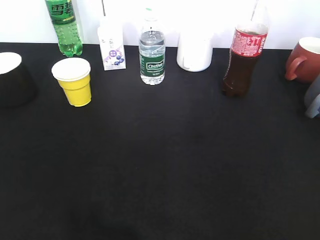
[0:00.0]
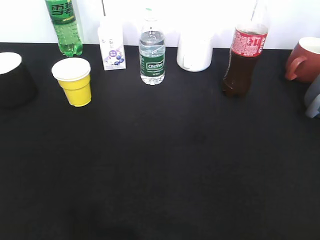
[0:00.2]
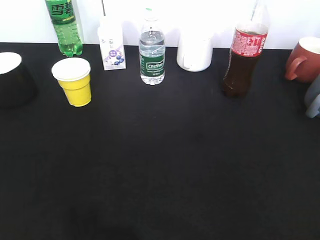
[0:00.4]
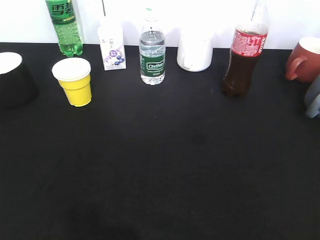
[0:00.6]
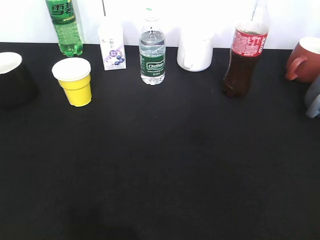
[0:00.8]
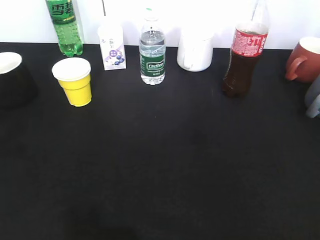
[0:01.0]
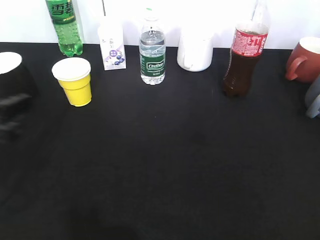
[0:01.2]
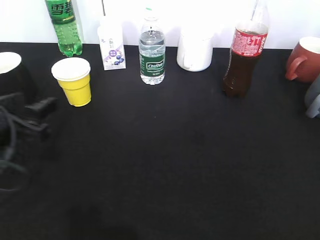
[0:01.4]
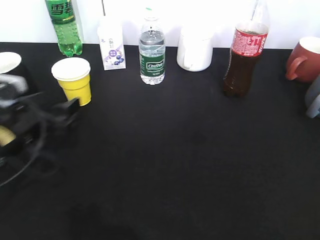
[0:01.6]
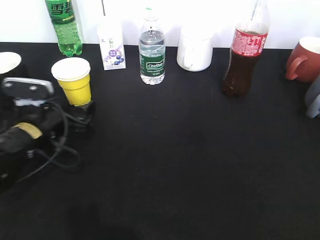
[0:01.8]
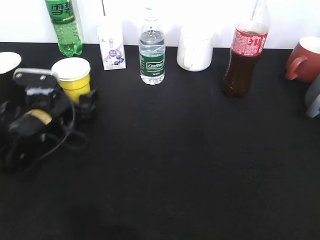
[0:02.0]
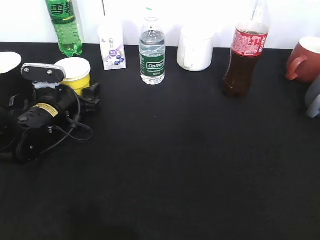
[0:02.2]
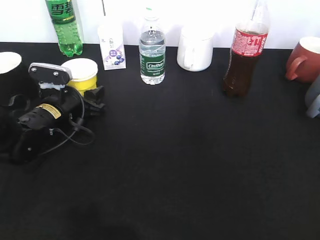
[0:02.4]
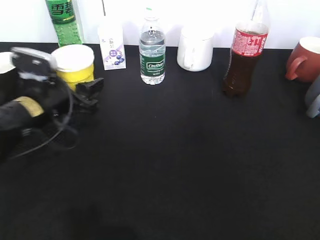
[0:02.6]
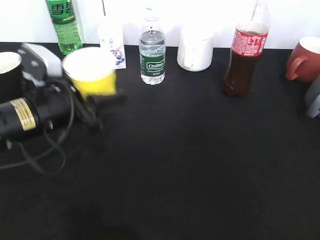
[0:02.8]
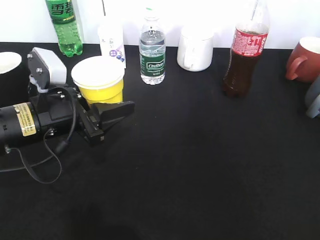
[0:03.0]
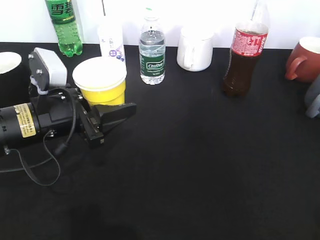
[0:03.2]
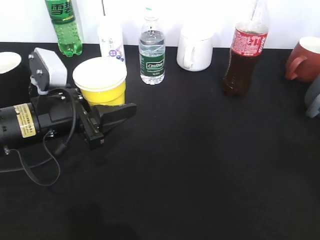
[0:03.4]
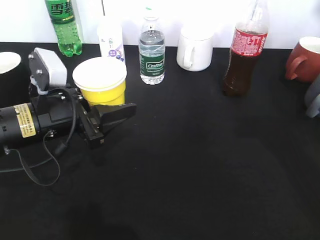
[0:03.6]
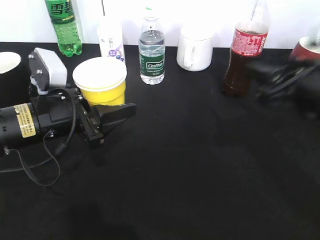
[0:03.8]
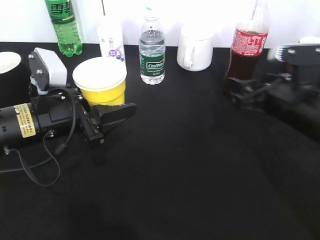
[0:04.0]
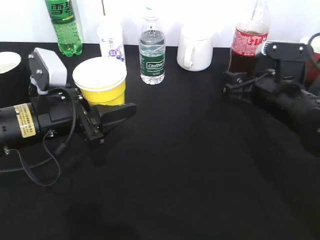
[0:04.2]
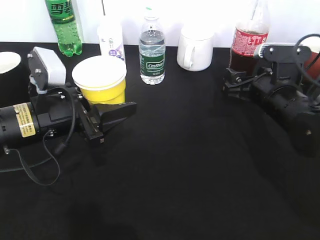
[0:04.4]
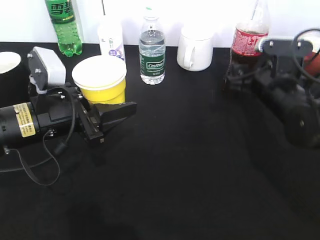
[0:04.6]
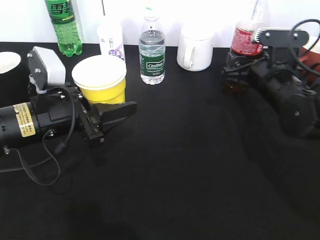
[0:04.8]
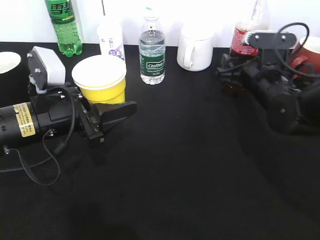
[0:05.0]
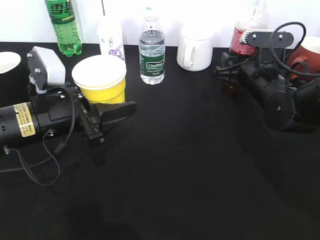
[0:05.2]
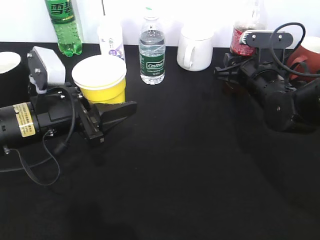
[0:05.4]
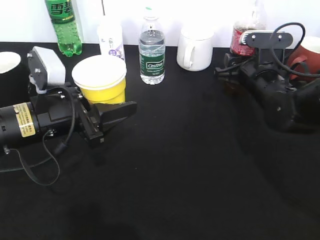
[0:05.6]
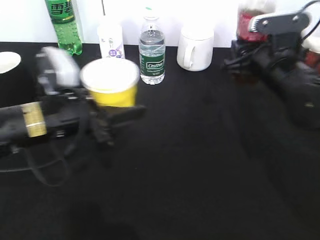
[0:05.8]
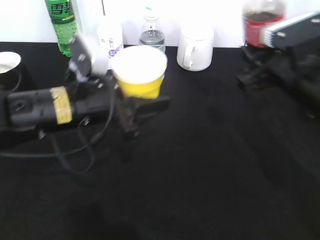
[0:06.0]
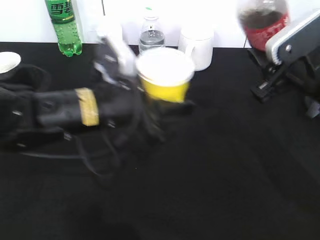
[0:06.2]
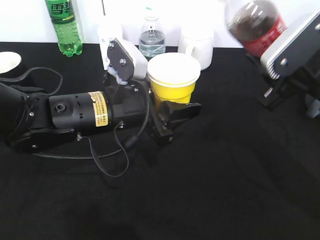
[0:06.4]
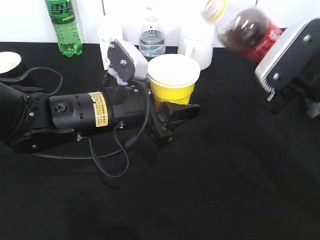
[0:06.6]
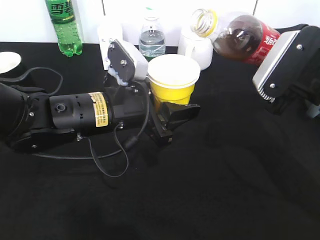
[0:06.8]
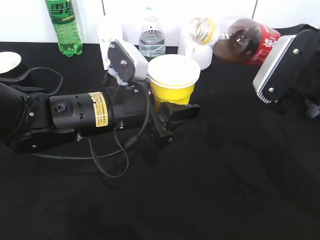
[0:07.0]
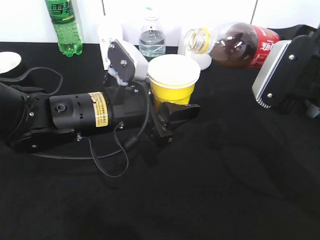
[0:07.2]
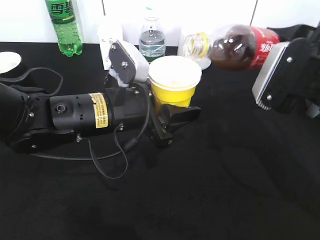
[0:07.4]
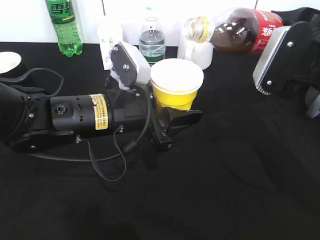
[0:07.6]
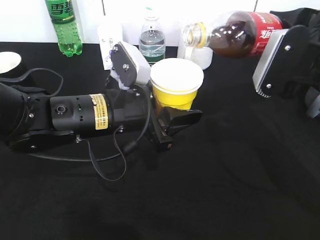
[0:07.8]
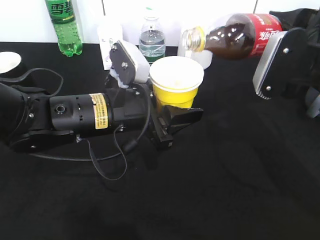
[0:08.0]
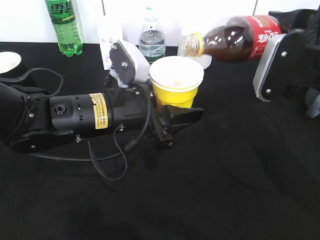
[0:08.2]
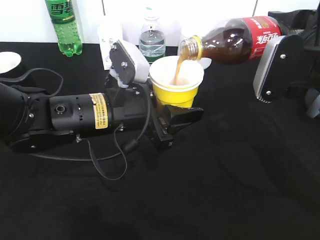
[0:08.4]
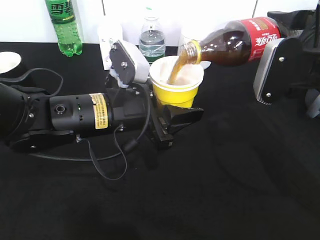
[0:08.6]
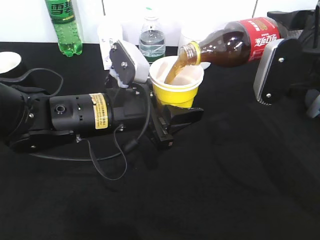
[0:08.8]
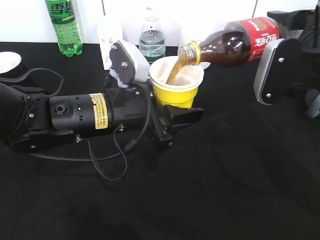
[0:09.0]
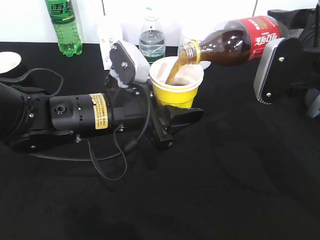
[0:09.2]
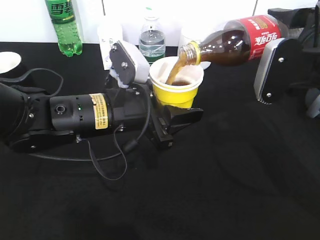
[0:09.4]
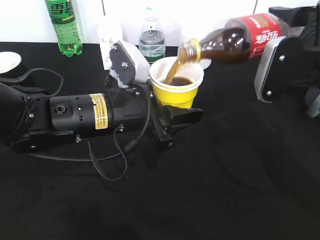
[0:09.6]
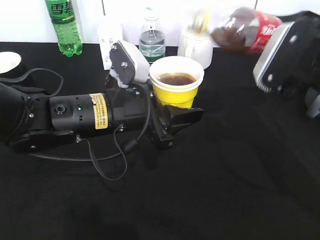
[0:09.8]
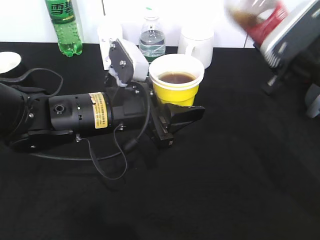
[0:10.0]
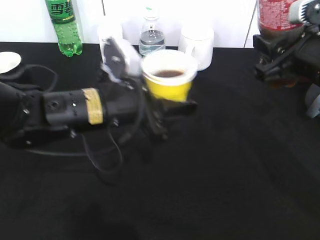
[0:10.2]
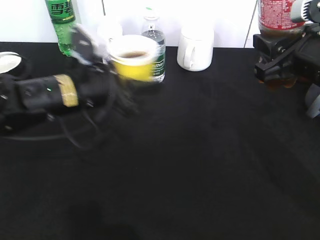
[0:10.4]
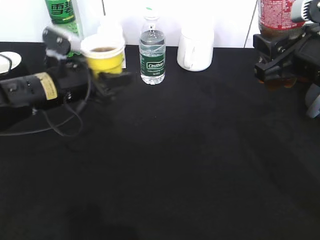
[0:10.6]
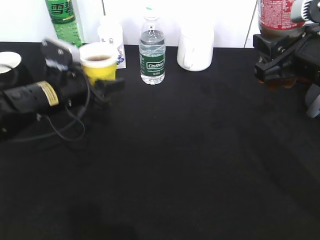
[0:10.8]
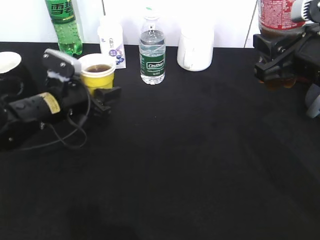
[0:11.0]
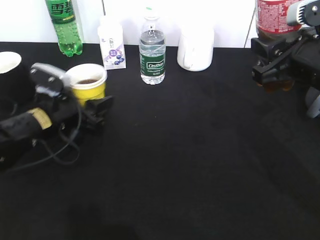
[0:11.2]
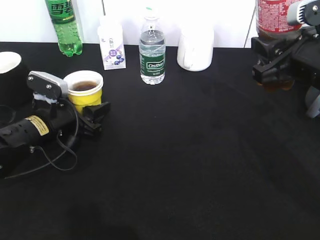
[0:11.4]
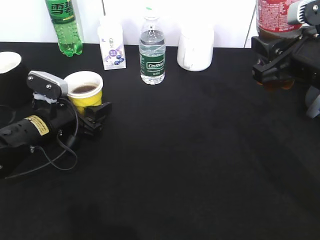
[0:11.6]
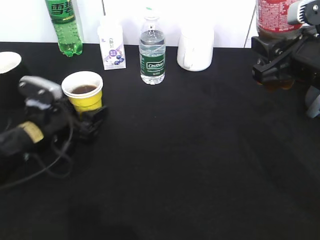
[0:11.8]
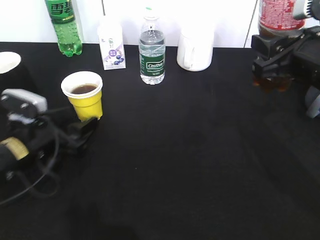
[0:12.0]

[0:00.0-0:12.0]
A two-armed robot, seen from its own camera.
Step, 0:00.0 to 0:02.4: Grasp the yellow paper cup with left gripper.
Step, 0:02.6 to 0:02.8: Lift the yellow paper cup with left gripper.
Step, 0:03.0 to 0:05.6: Grasp the bottle with cola with right gripper.
Step, 0:05.8 to 0:09.6: Pour the cola from bottle to cup with right gripper.
Step, 0:09.8 to 0:11.8: Place the yellow paper cup on the table with left gripper.
0:00.0 to 0:01.6: The left gripper travels forward and downward by about 30 cm, and opens its fingers.
0:01.6 to 0:03.0: The left gripper travels to the right by some 5 cm, moves approximately 10 cm forward and comes back, and closes its fingers.
0:03.0 to 0:04.4: The right gripper shifts roughly 35 cm forward and downward.
0:04.4 to 0:06.0: The left gripper heads to the right, covering about 5 cm. Meanwhile the right gripper moves upward, some 5 cm, and closes up.
0:06.0 to 0:07.6: The right gripper changes place by some 5 cm.
0:07.6 to 0:09.0: The grippers move only a little.
0:09.0 to 0:10.4: The left gripper is displaced to the left by roughly 5 cm.
0:10.4 to 0:12.0: The left gripper heads to the left and downward, covering approximately 15 cm, and opens up.

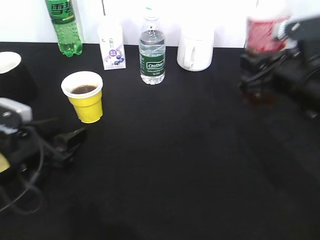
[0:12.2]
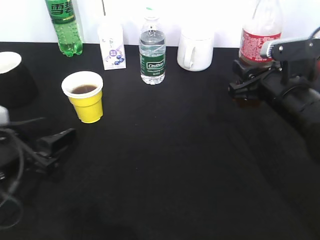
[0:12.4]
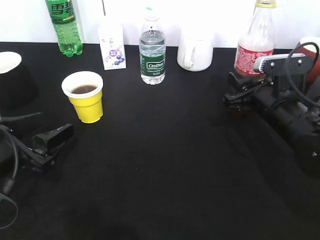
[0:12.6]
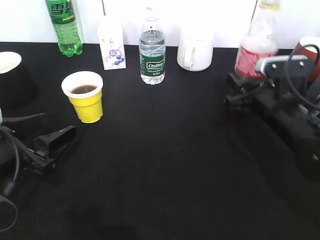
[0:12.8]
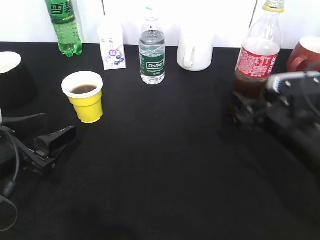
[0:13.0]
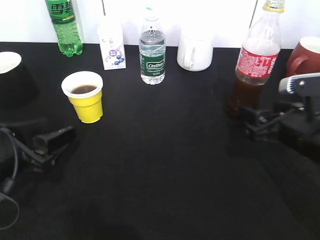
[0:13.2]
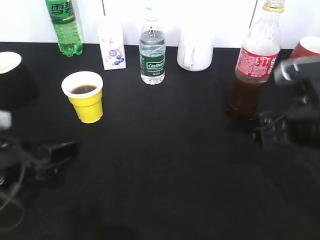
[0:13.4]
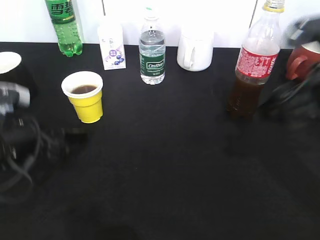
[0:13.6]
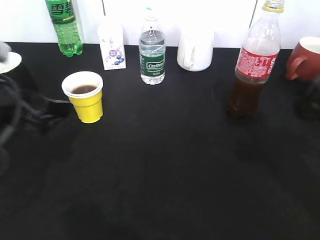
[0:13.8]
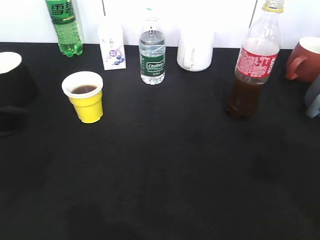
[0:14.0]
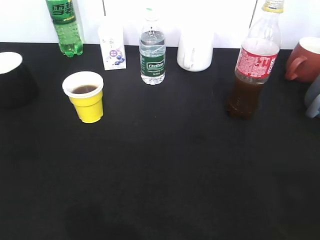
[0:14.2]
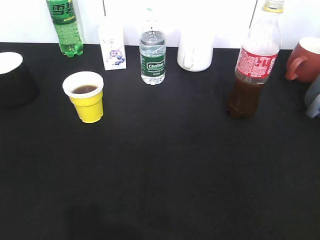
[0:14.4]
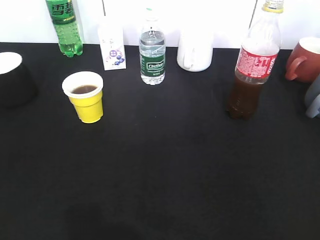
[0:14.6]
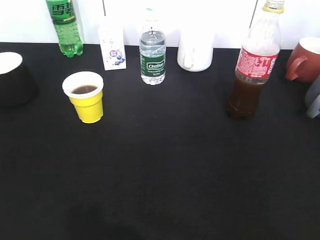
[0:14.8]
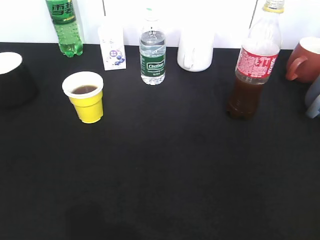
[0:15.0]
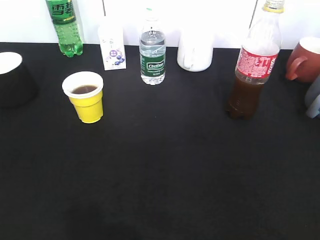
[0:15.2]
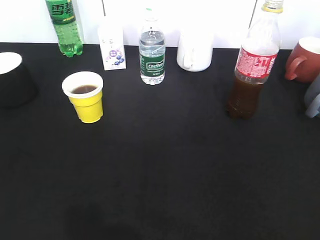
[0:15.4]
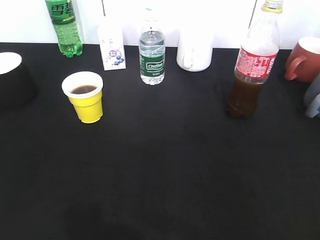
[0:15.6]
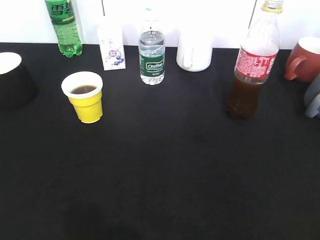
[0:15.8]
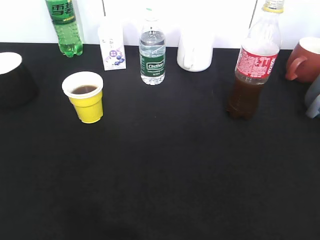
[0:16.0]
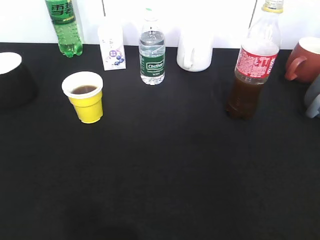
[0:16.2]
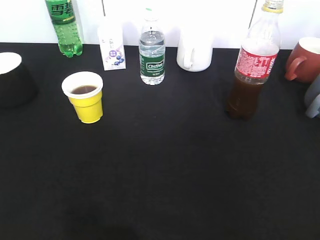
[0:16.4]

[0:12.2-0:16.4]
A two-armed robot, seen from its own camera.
Step, 0:12.2 to 0:13.2: Place the cola bottle on the table with right gripper.
0:12.2 to 0:13.6: The right gripper is displaced upward and backward by approximately 10 cm, and opens.
0:13.6 to 0:15.0: The left gripper moves backward, upward and to the left, roughly 25 cm, while the right gripper heads backward and to the right, covering about 25 cm.

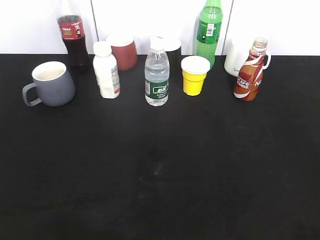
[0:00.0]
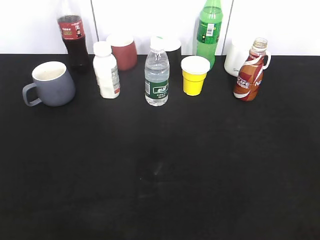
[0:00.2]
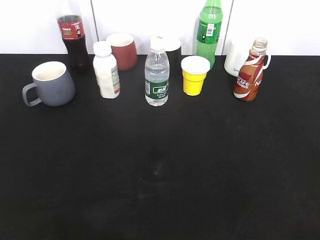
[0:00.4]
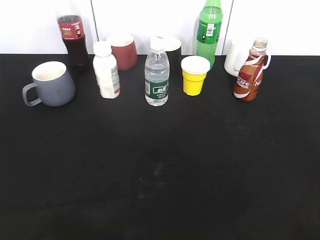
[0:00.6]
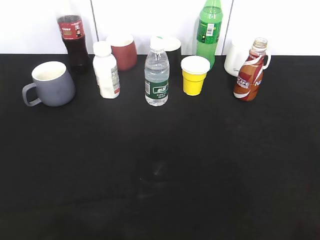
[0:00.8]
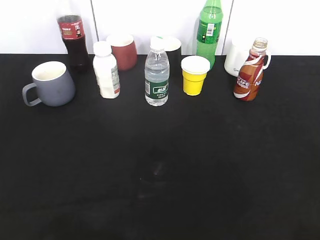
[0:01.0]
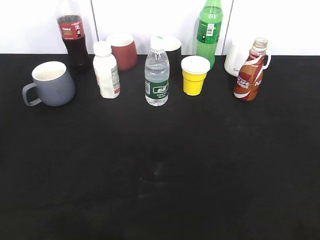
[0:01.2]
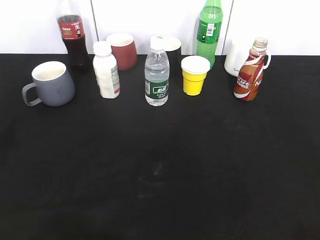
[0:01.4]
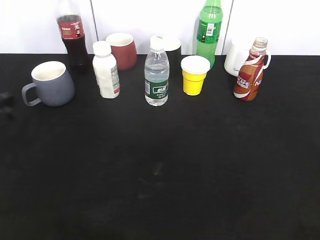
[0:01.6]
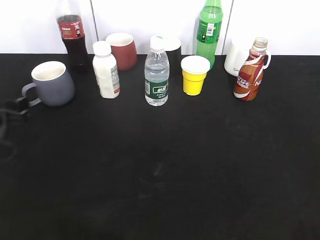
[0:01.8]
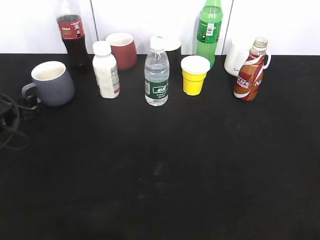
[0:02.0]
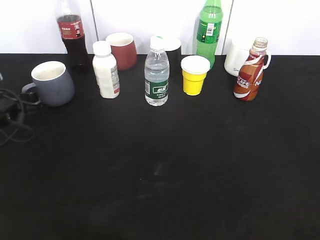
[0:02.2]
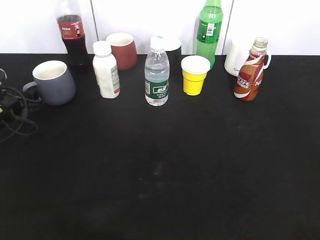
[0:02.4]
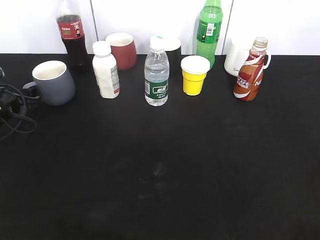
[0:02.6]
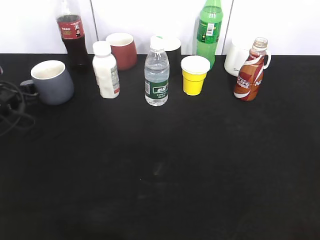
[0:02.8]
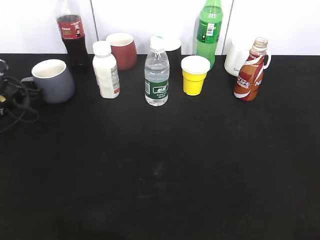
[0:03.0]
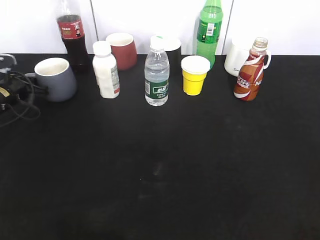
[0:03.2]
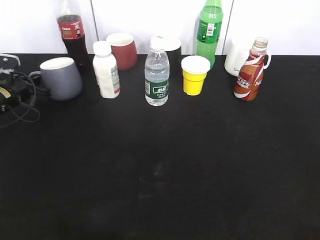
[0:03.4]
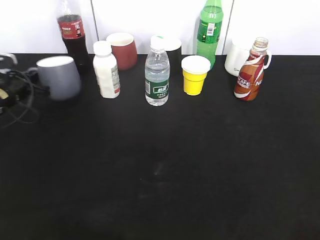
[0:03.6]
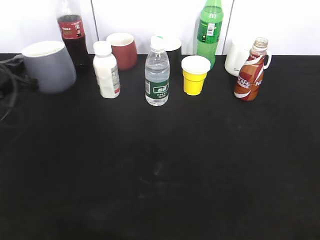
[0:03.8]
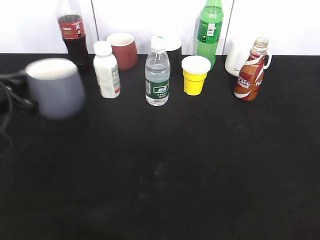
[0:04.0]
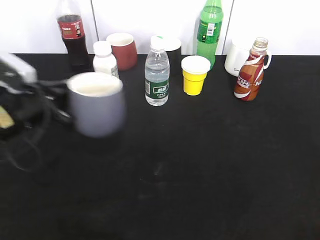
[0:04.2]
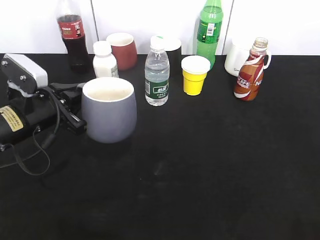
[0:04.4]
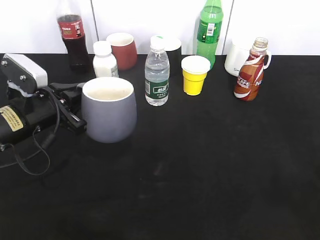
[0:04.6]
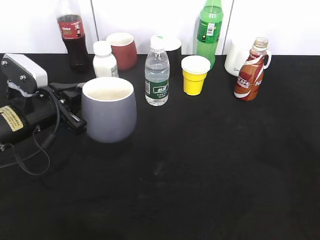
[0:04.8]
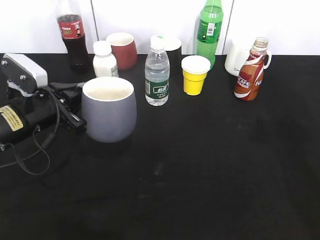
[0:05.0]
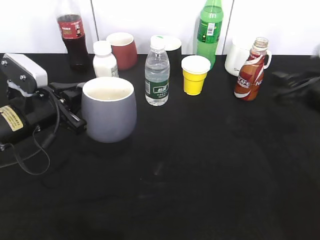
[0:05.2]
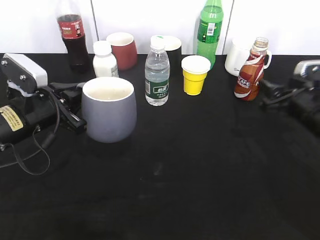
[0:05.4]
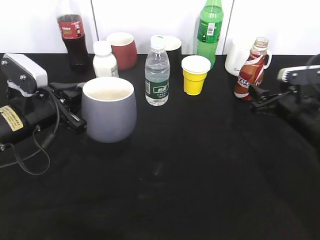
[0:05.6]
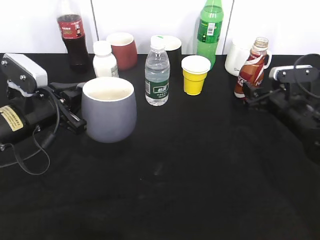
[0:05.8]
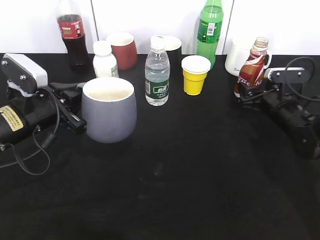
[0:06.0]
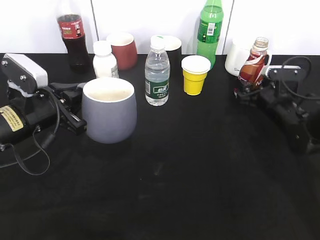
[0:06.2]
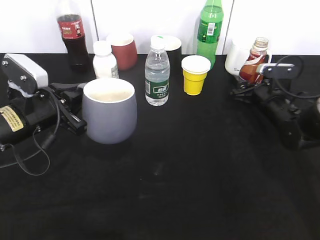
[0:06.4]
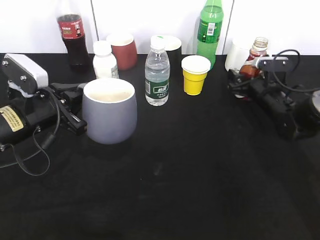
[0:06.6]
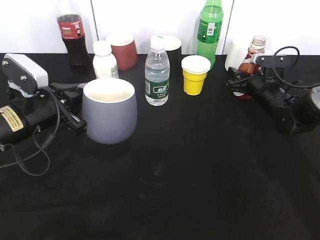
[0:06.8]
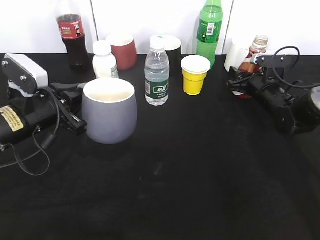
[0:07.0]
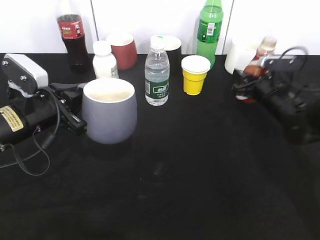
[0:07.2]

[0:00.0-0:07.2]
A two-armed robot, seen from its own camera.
Step, 0:01.6 to 0:03.4: Grasp the grey cup with left gripper.
Step, 0:03.6 to 0:04.8: Lift the grey cup with left gripper.
Step, 0:05.0 to 0:07.0: Grasp the bottle with coffee with right gripper.
0:01.4 to 0:02.8: The left gripper heads forward and downward, covering some 20 cm.
0:02.8 to 0:04.4: The left gripper is displaced to the right, backward and upward by roughly 15 cm, and closes its fingers.
0:04.4 to 0:05.8: The right gripper goes about 40 cm forward and downward, and opens up.
0:05.8 to 0:07.2: The right gripper closes its fingers.
